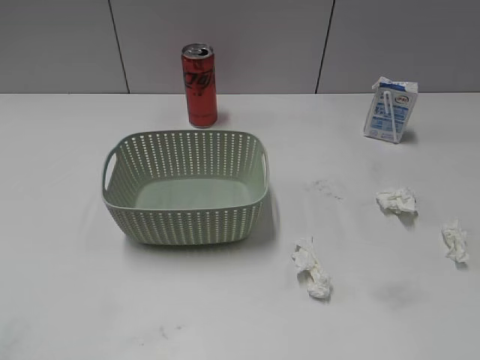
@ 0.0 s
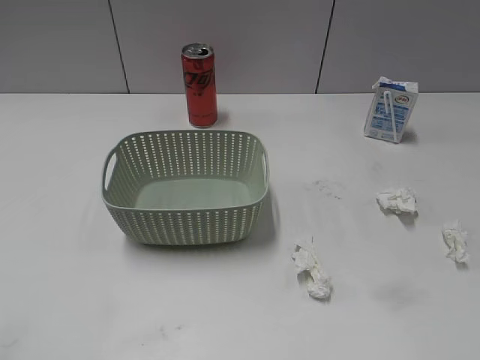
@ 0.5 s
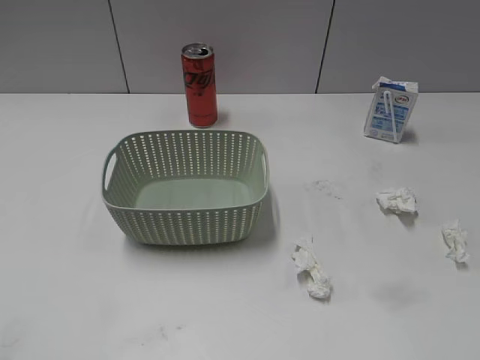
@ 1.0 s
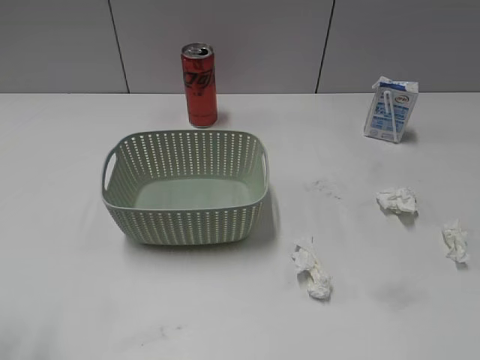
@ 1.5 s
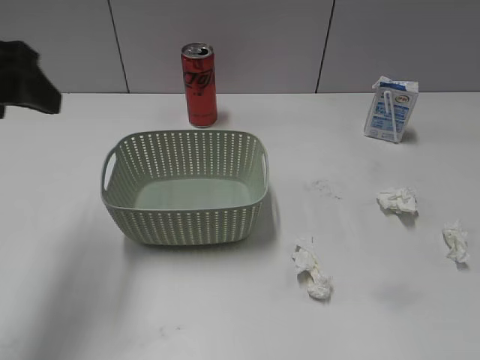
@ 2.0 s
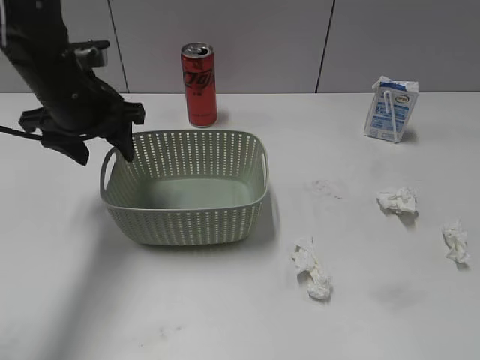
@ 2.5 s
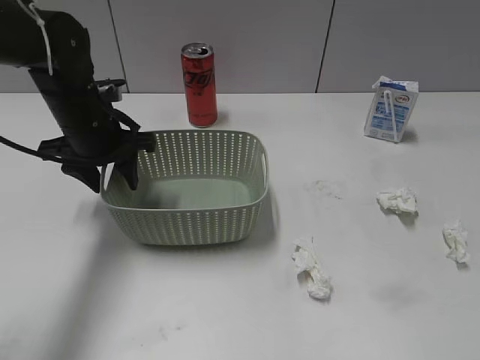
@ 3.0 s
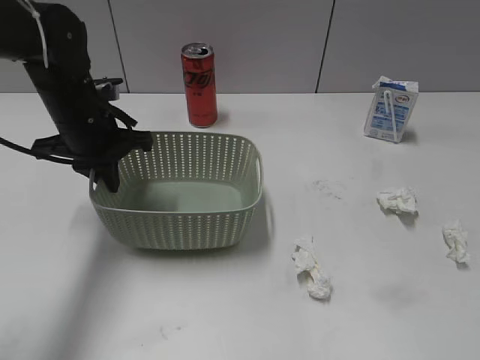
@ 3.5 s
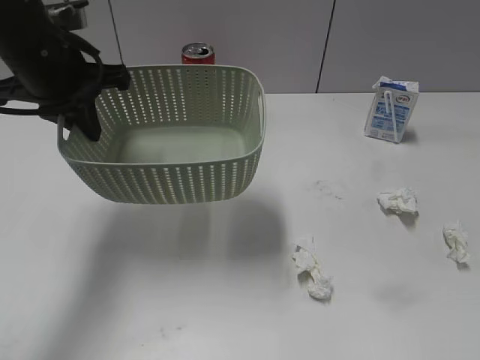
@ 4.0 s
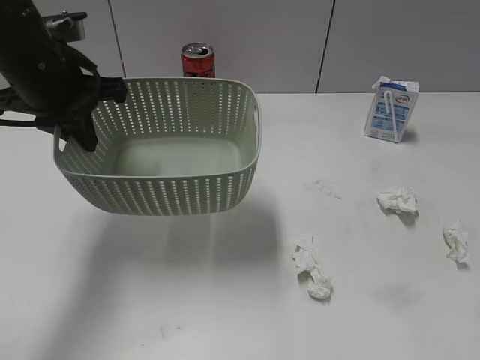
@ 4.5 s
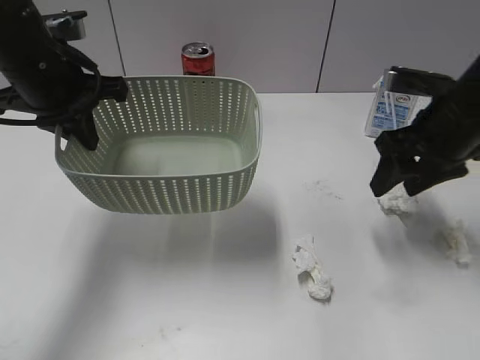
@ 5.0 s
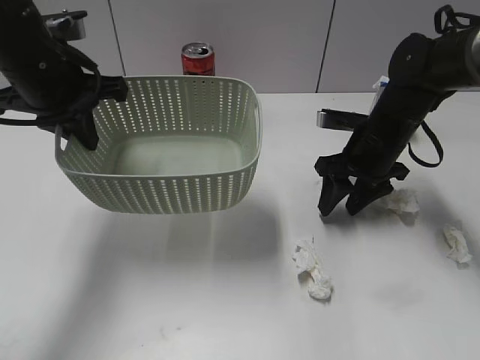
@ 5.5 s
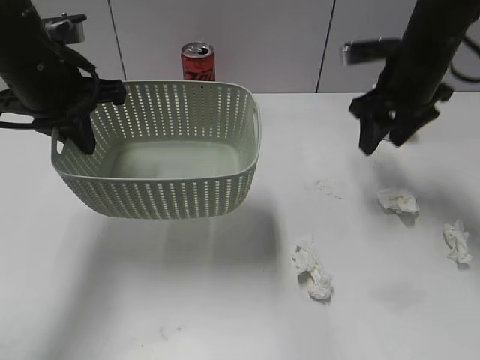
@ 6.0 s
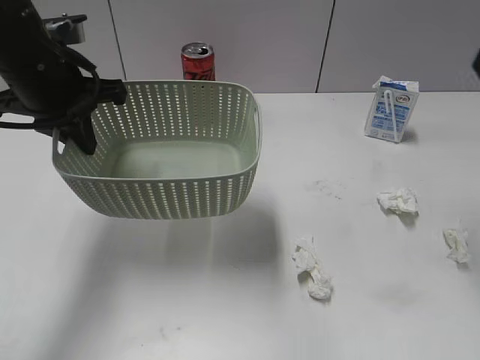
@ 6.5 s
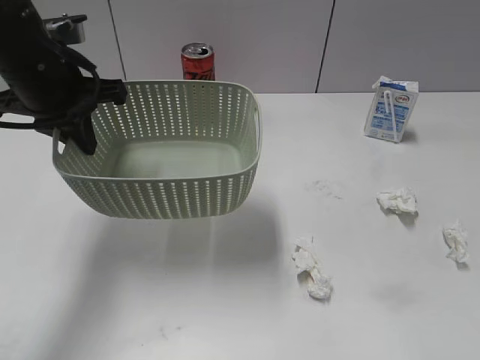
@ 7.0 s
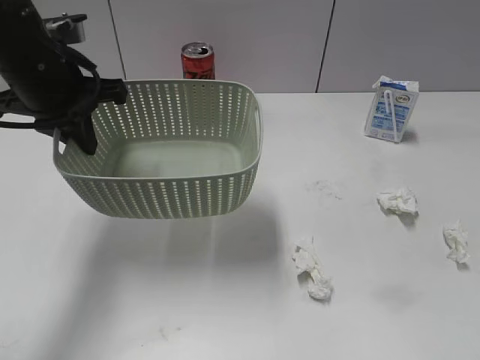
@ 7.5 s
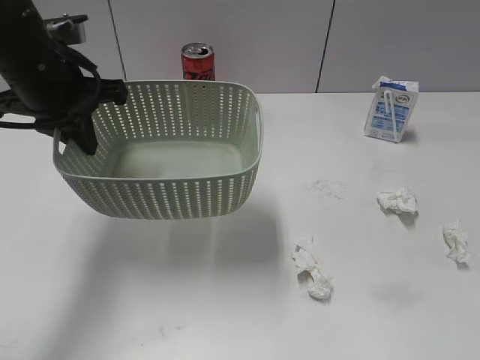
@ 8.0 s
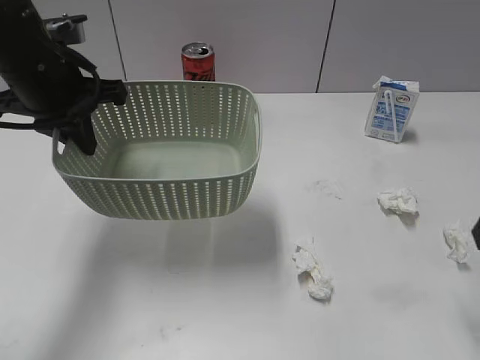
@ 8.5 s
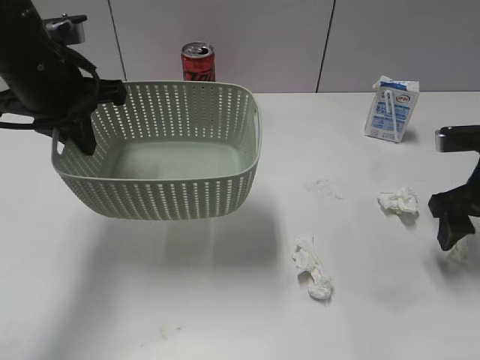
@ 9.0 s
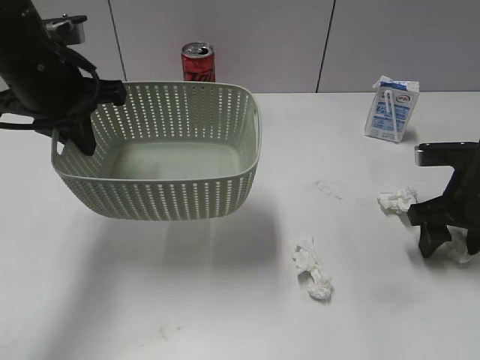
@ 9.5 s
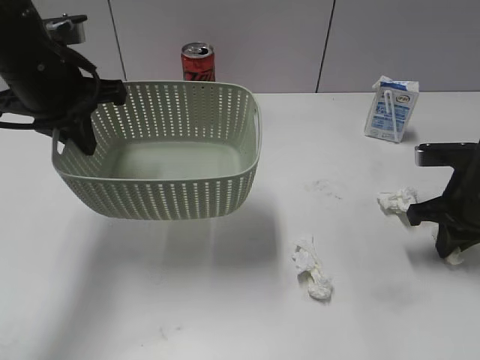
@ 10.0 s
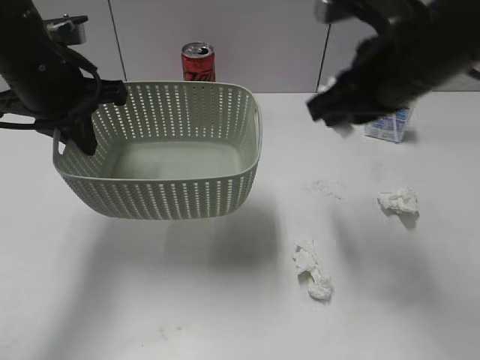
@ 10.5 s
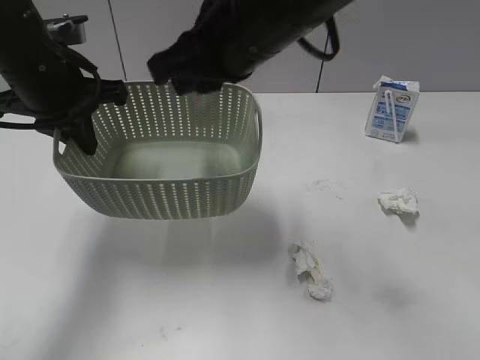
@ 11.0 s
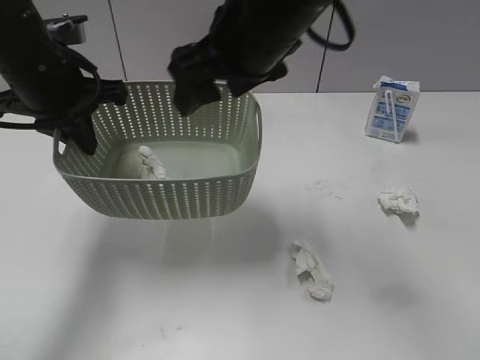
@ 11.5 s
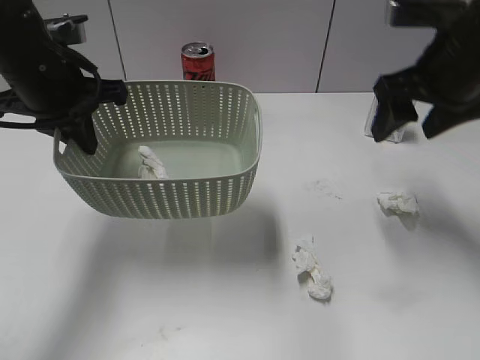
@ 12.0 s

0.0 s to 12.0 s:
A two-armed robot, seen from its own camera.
Step, 2.0 to 3.0 s: Grasp the basket with left gripper.
Step, 3.5 to 4.0 s: Lift the basket with left gripper.
Step, 4.5 to 9.5 s: Grasp the waste paper with right gripper.
Step, 10.0 to 11.5 s: Place the waste paper in the basket with right gripper.
2.0 to 4.0 s: The left gripper is displaced forward and to the right by approximately 10 cm, reaches roughly 15 cm downward, then returns, and closes up.
4.0 to 6.0 s: The right gripper moves forward, about 40 cm.
6.0 to 8.0 s: The right gripper goes about 40 cm backward.
8.0 to 10.0 s: The right gripper is displaced forward and downward by approximately 35 cm, and closes.
10.0 to 12.0 s: The right gripper goes approximately 15 cm upward, moves some 25 cm to the left and comes back, and opens up.

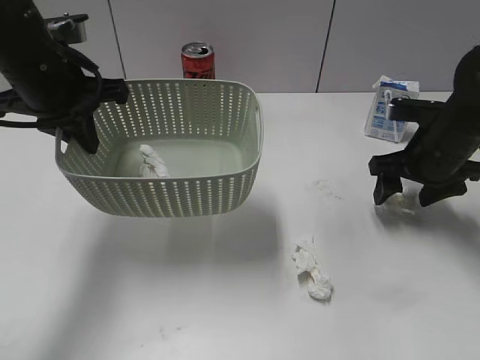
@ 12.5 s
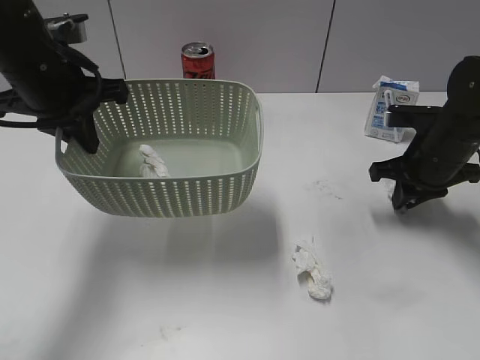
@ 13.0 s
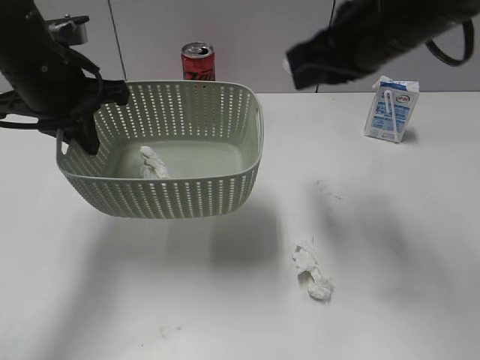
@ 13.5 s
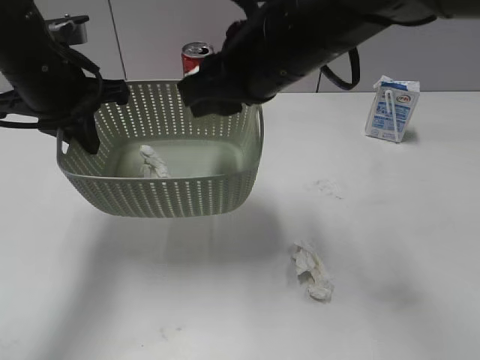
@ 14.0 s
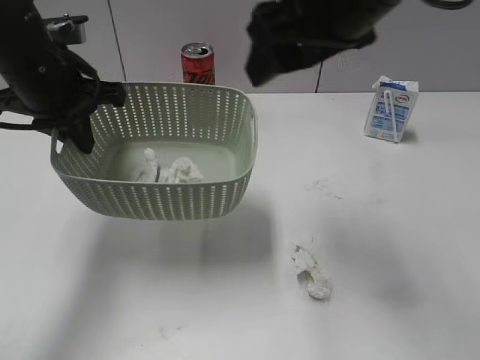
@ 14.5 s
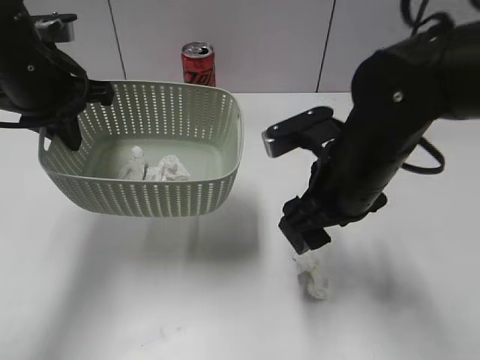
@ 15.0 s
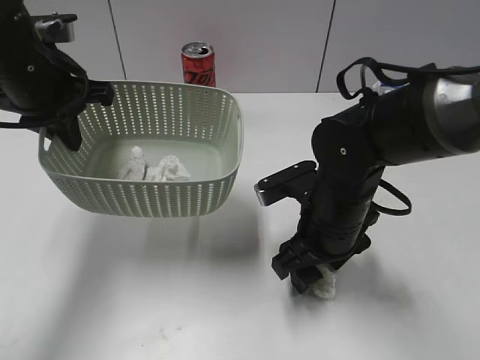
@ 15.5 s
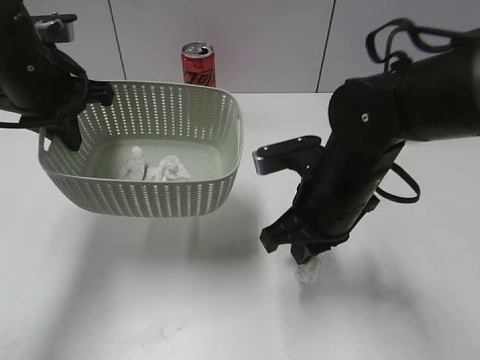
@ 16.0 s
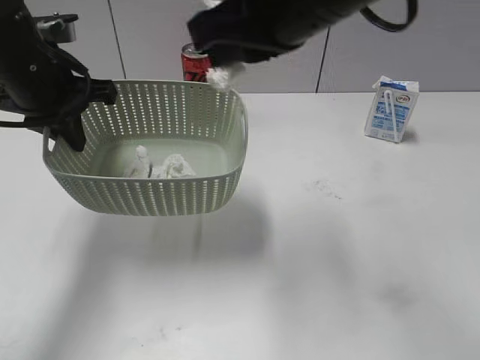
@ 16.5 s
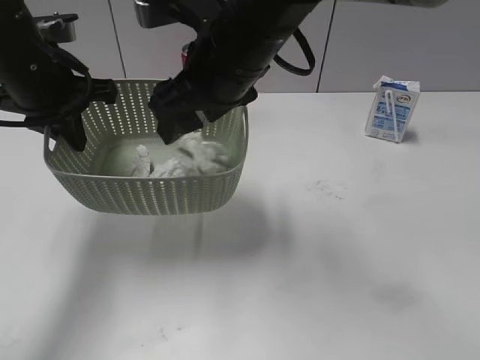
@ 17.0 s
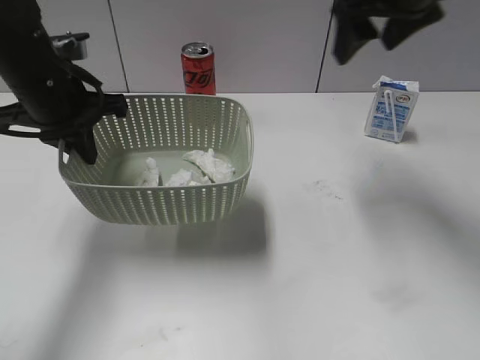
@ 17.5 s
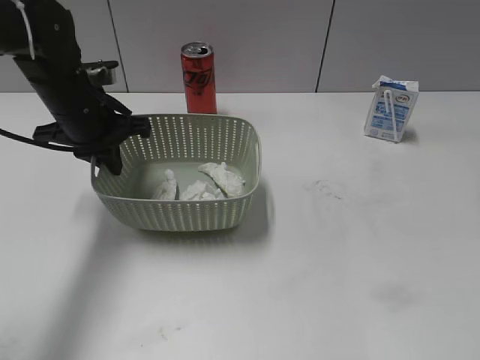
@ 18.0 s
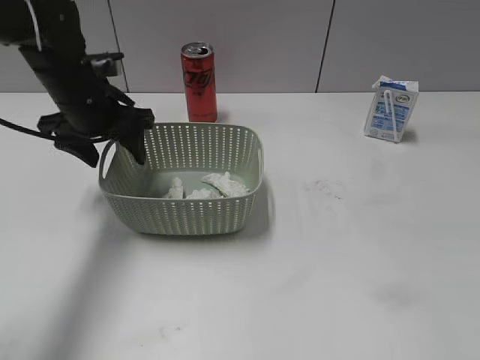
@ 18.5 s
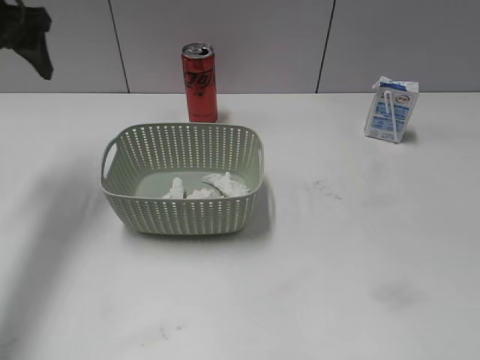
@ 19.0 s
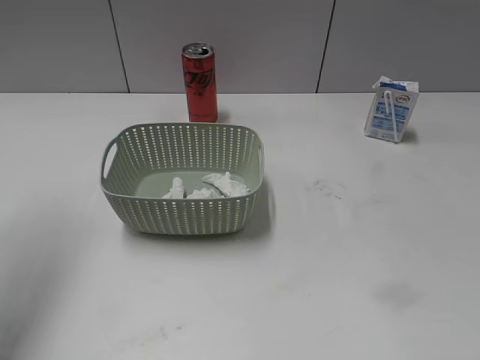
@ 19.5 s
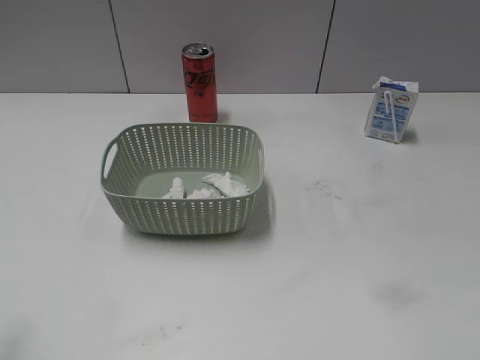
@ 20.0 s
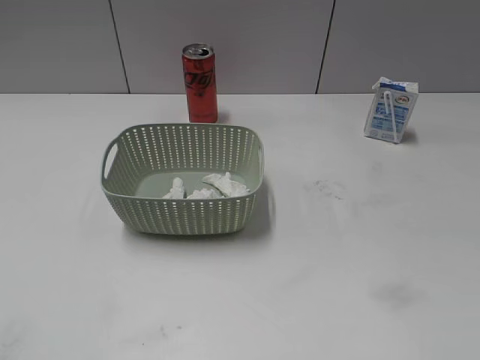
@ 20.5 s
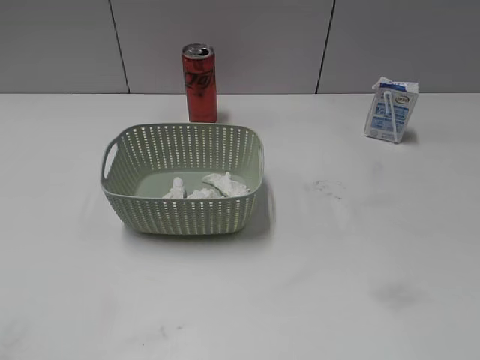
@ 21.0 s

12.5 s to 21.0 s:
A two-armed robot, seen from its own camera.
Step, 13.5 to 14.0 s: Place the waste paper in the basket with right gripper.
Step, 14.5 to 15.5 s: Grasp the waste paper with right gripper.
Step, 16.0 to 17.0 s: Place the waste paper in the basket with right gripper.
Step, 17.5 to 18.5 s: Place the basket on the table with left gripper.
12.5 to 14.5 s: The right gripper shifts roughly 25 cm upward and to the left, and closes and opens again.
14.5 to 16.5 s: The right gripper goes downward and returns, roughly 25 cm each way, and closes its fingers.
16.5 to 19.0 s: The right gripper shifts approximately 35 cm to the right and backward, and opens up; the left gripper goes some 10 cm to the left and forward, and opens its fingers.
19.0 to 21.0 s: The left gripper shifts some 40 cm backward.
